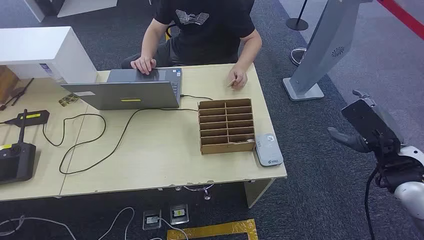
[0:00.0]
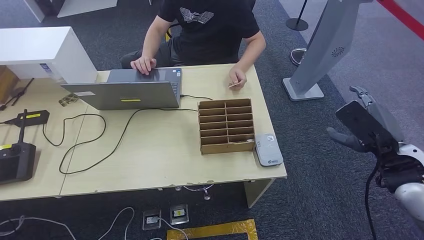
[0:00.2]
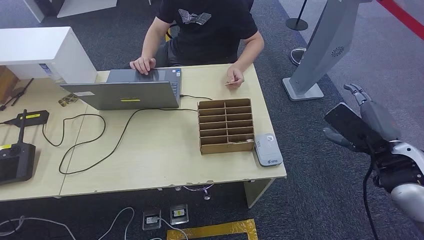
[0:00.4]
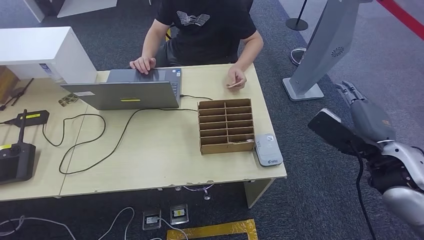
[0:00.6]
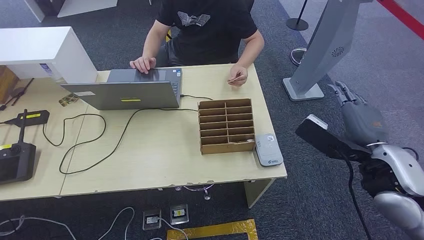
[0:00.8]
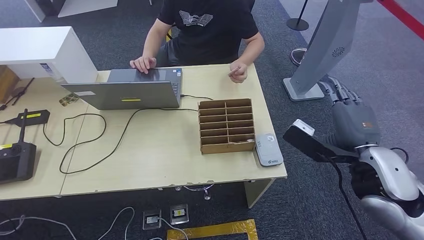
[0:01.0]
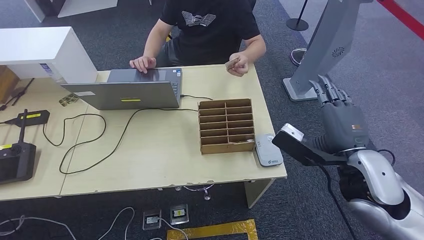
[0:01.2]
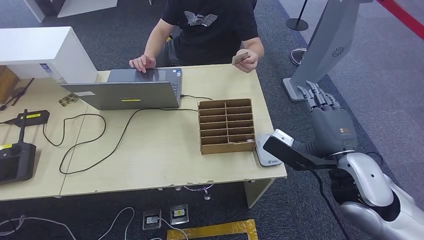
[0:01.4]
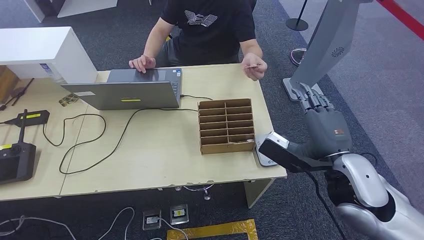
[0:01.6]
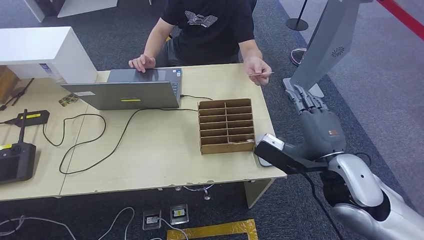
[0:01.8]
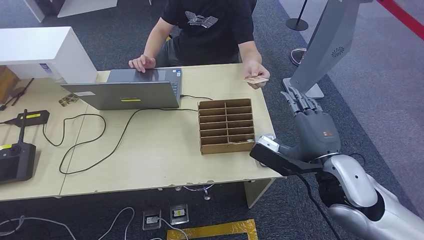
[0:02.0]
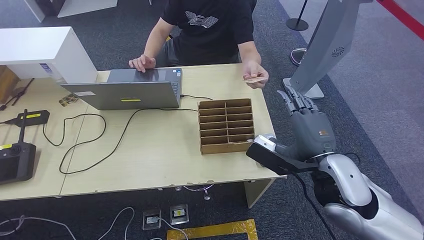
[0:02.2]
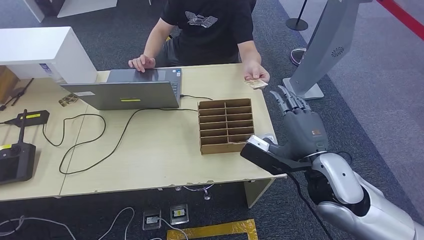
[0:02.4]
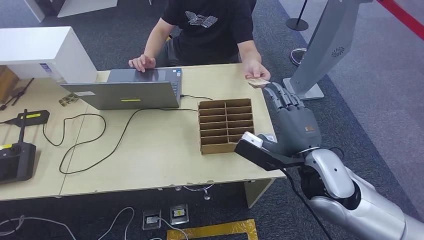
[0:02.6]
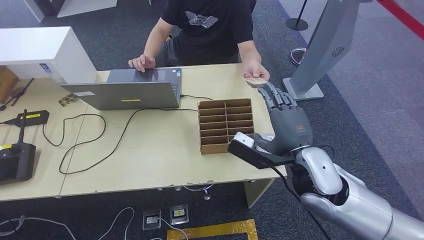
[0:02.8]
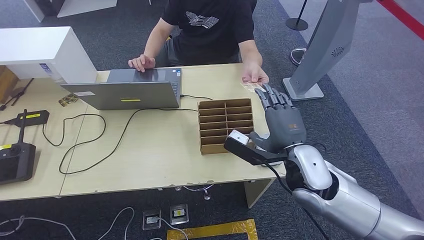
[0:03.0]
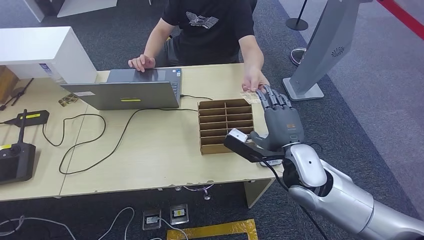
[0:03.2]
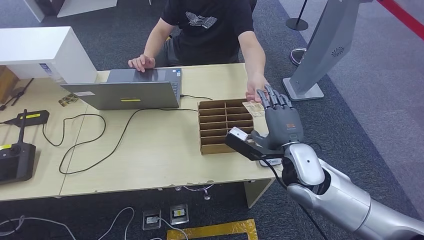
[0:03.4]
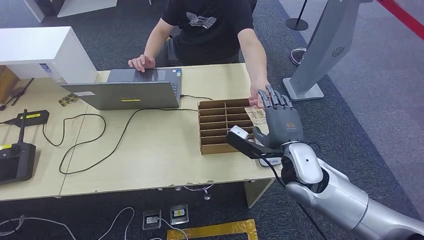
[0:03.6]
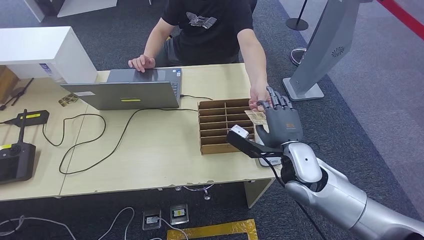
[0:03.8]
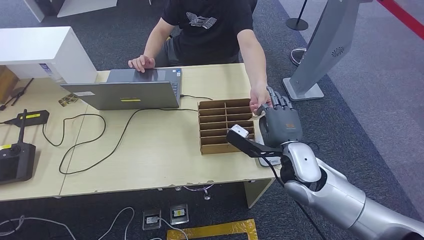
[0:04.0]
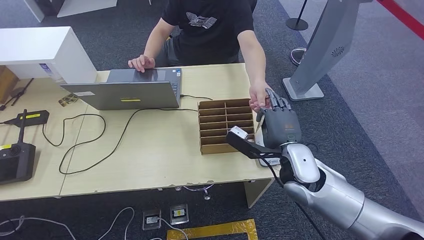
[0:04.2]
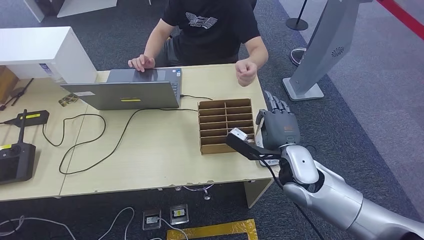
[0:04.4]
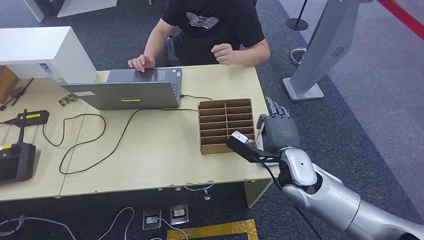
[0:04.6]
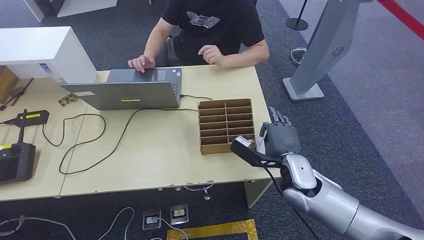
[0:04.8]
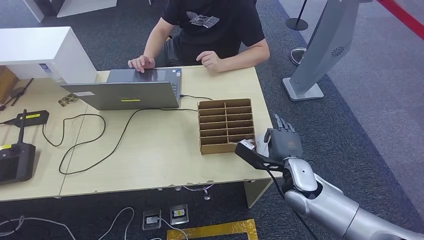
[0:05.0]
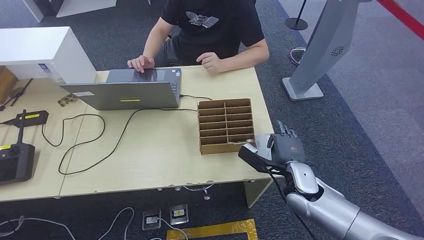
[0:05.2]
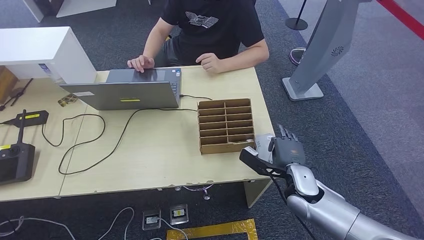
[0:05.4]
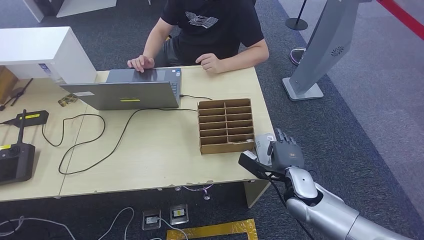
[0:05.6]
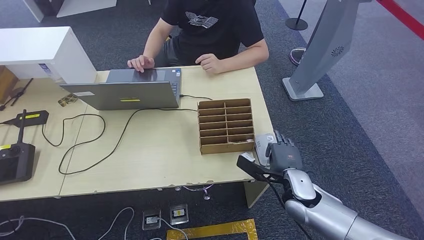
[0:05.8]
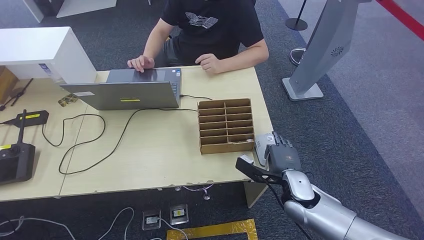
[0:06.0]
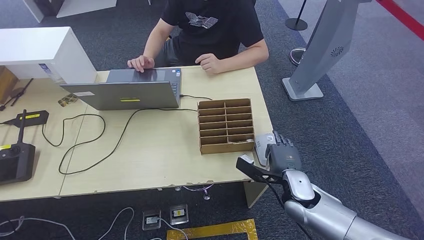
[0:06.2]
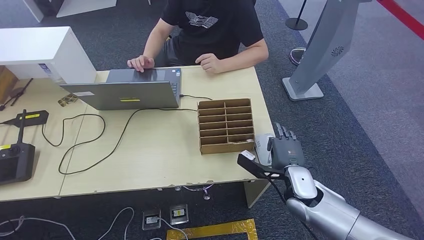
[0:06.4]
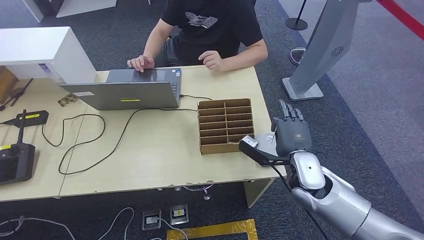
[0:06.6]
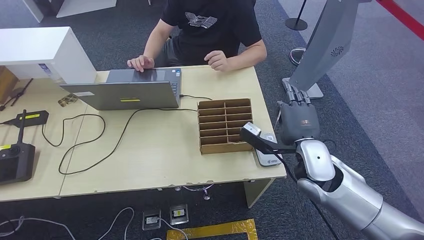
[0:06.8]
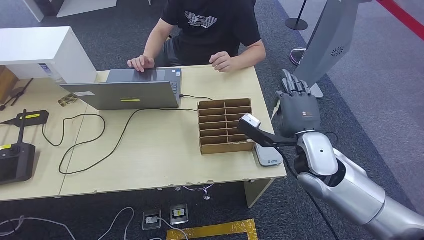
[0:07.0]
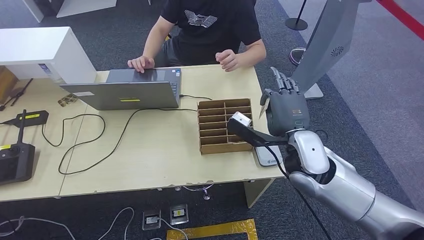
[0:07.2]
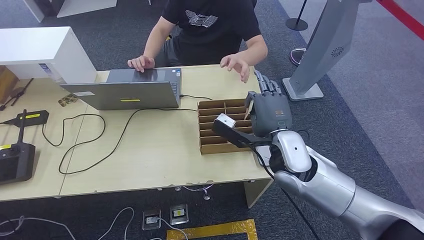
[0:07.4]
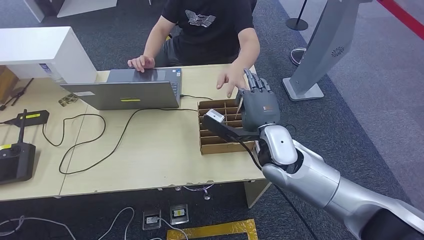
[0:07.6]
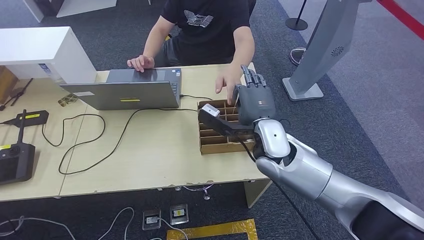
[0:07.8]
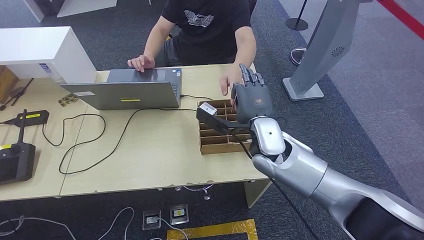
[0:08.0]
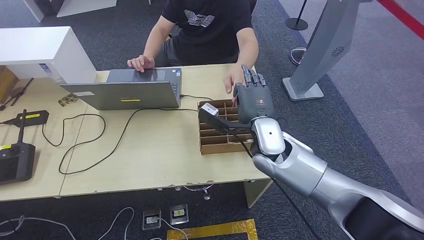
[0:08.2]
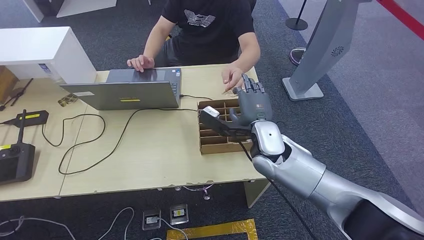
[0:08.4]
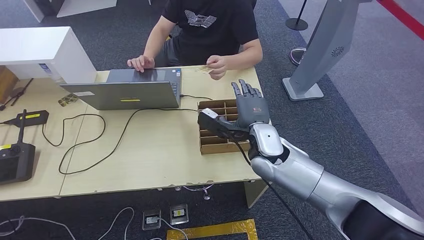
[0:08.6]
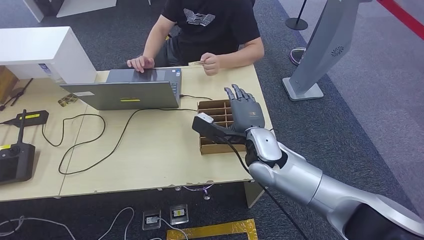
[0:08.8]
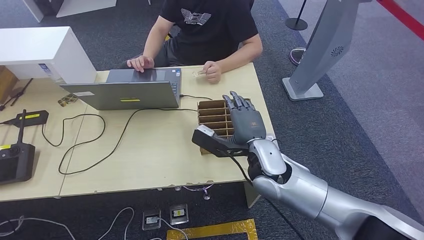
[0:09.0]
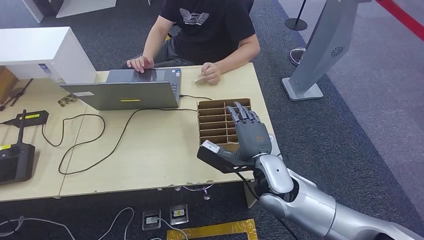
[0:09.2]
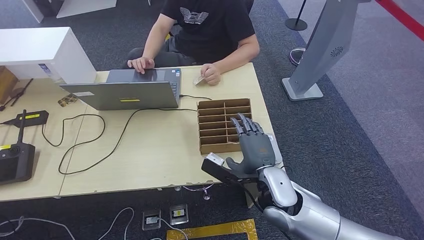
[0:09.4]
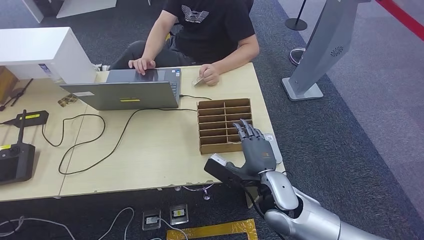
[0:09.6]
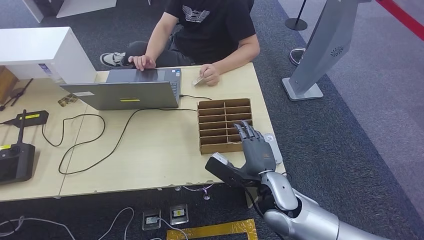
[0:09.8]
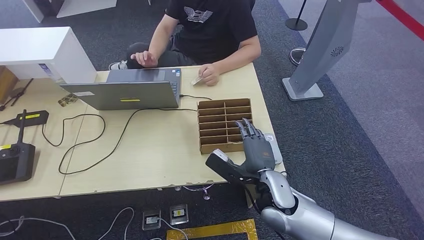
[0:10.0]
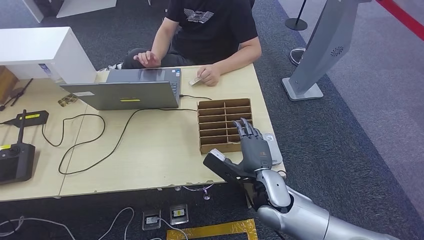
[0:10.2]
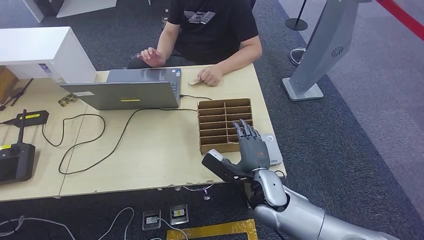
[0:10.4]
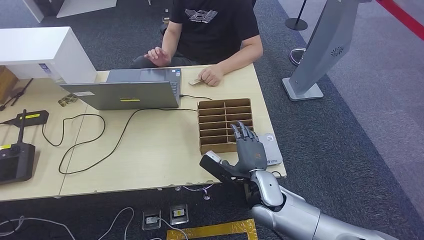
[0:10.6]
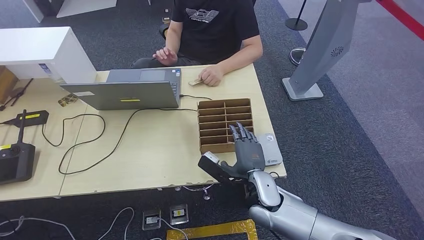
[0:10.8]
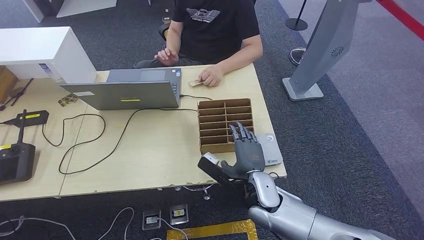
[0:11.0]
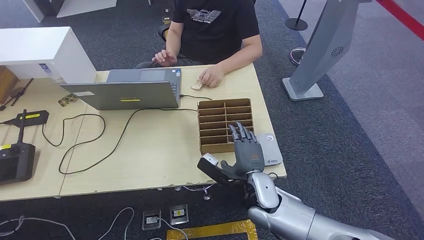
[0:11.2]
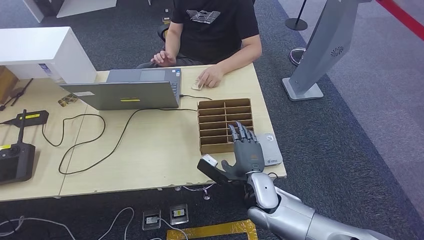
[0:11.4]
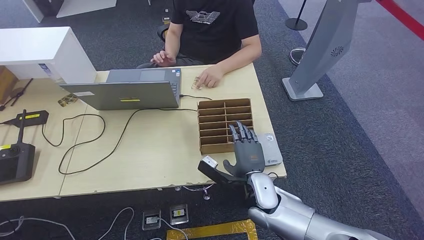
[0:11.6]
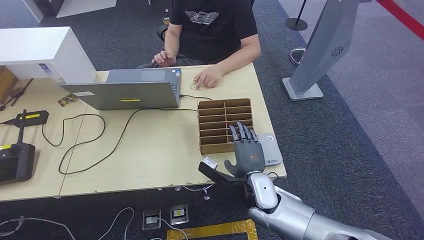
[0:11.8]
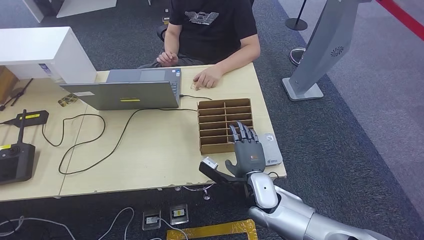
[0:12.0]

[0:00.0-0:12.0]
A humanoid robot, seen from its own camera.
Step, 0:00.0 to 0:04.2: Take the ID card from the person's hand.
Step, 0:04.4 to 0:06.2: Place the ID card on the card reader.
Step, 0:06.4 to 0:08.2: Hand the ID card to the person.
0:01.6 to 0:03.0: The right hand heads to the left, covering roughly 5 cm.
0:03.0 to 0:04.4: The hands make only small movements.
0:04.4 to 0:06.0: The right hand heads downward, covering about 10 cm.
0:06.0 to 0:07.6: The right hand is displaced upward, to the left and forward by some 20 cm.
0:07.6 to 0:09.0: There are only small adjustments of the hands.
0:09.0 to 0:10.4: The right hand shifts some 10 cm downward.
0:10.4 to 0:12.0: The hands make only small movements.

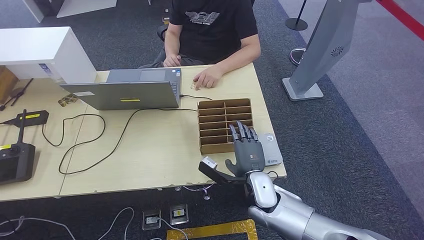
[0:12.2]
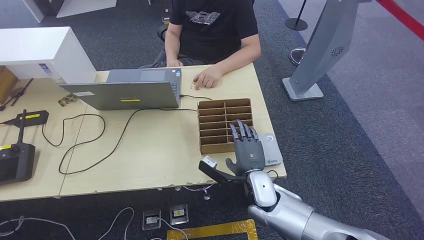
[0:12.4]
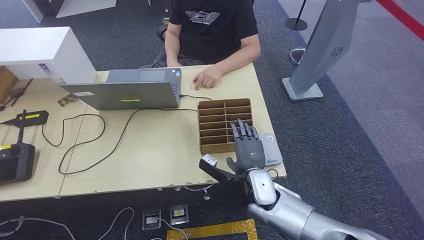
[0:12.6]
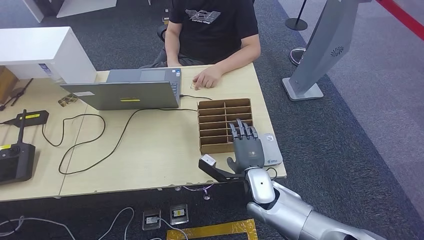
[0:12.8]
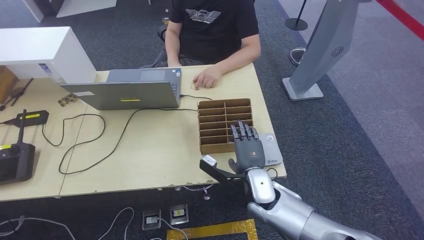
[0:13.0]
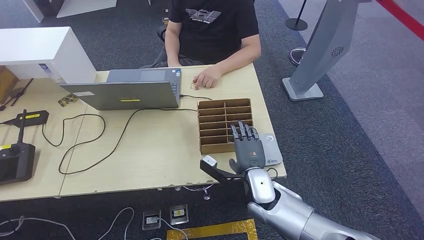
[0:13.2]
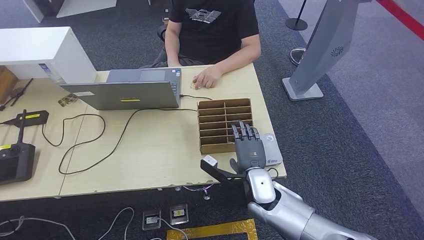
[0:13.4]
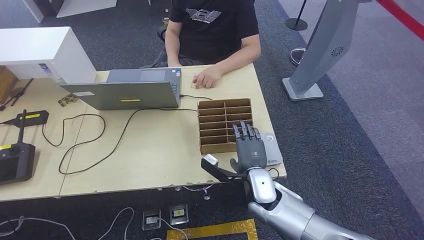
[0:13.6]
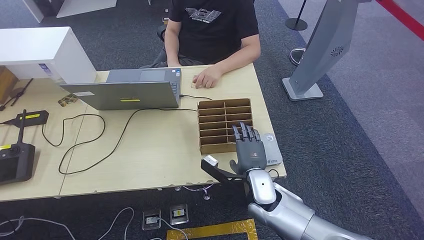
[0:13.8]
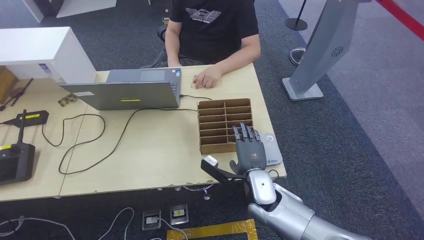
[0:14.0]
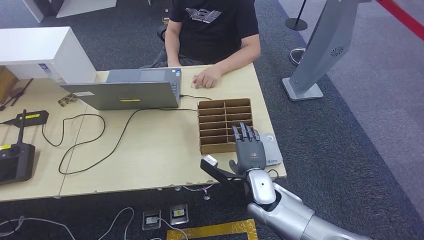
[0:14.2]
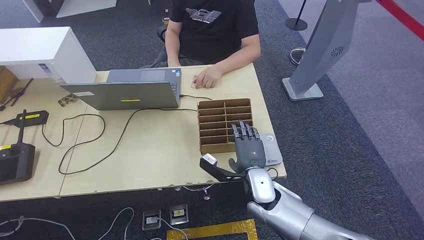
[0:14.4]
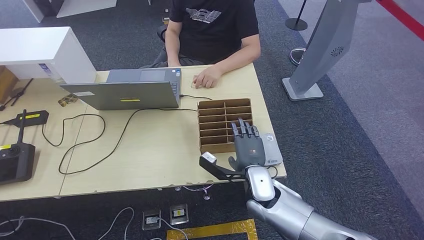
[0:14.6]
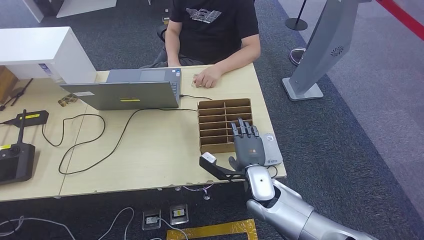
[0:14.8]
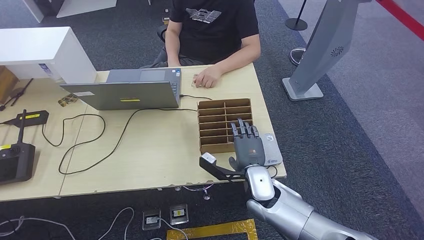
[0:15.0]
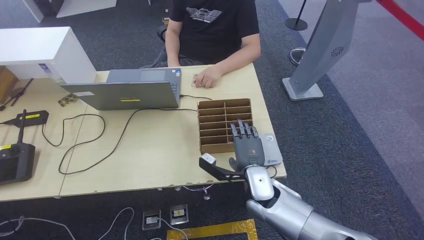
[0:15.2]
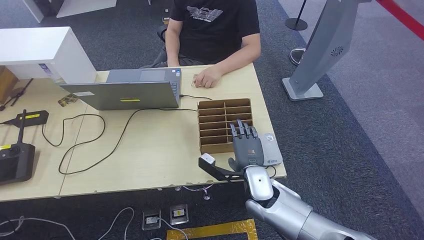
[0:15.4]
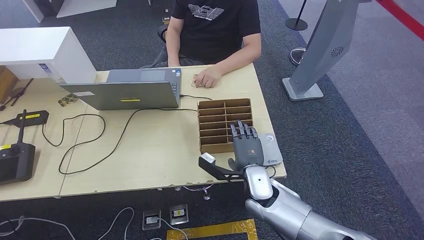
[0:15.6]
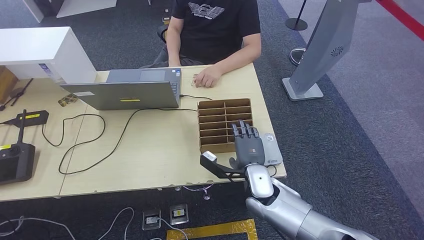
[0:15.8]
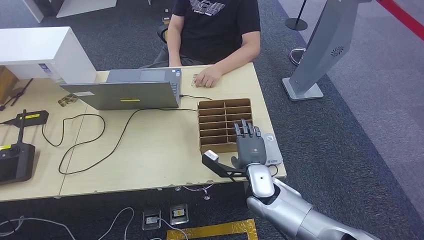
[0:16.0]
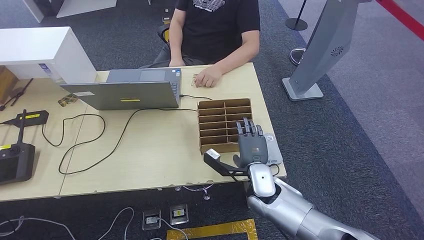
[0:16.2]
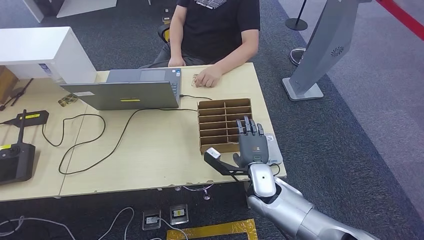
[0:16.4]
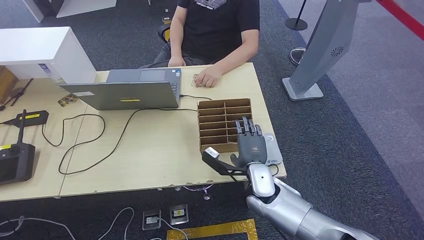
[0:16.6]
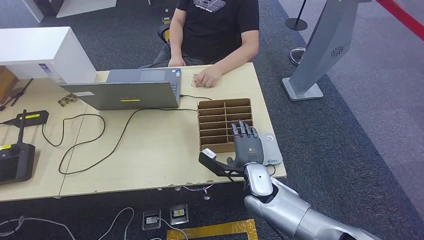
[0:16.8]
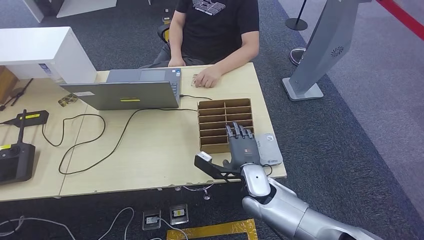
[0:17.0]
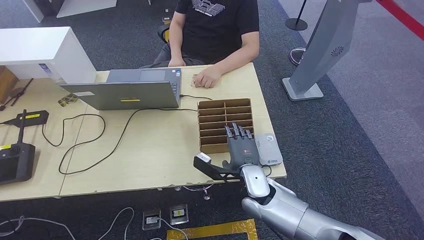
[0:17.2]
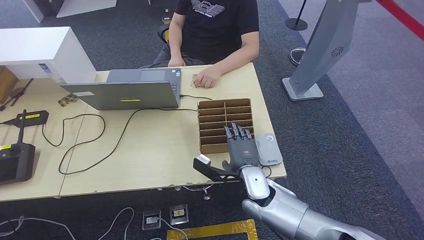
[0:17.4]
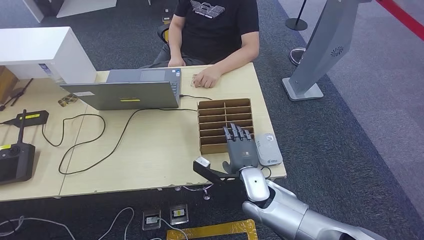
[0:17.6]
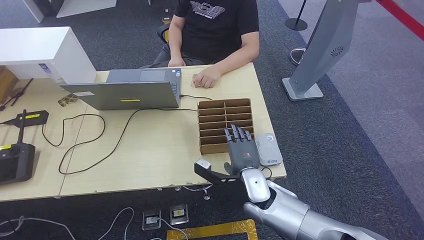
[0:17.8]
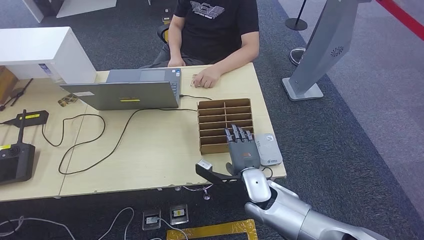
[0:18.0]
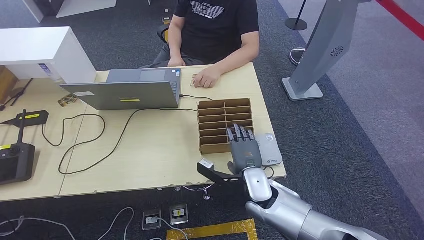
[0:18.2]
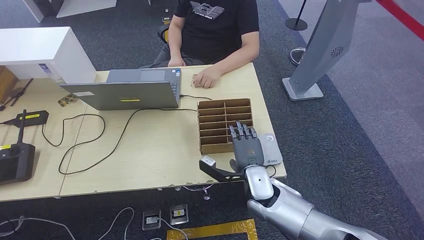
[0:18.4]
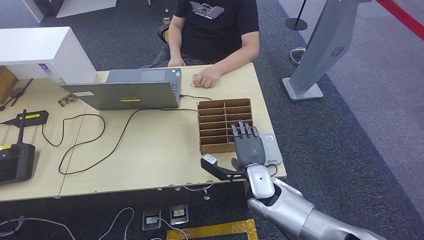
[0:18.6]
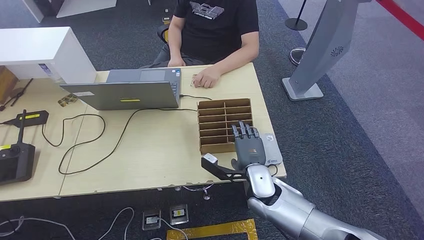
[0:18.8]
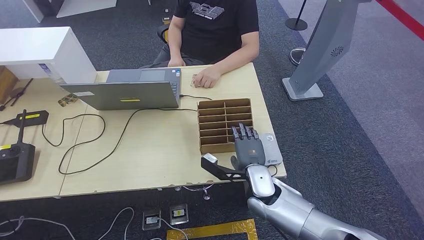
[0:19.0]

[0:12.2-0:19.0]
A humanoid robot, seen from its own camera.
0:12.2 to 0:13.6: The hands make only small movements.
0:13.6 to 0:16.2: Both hands stay about where they are.
0:16.2 to 0:19.0: The hands move only a little.
